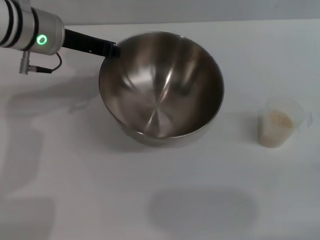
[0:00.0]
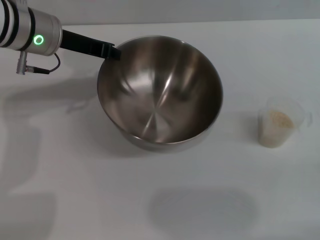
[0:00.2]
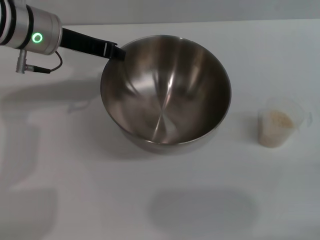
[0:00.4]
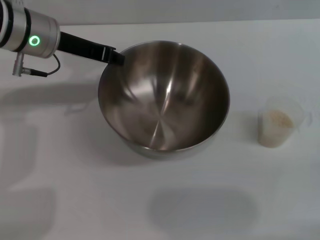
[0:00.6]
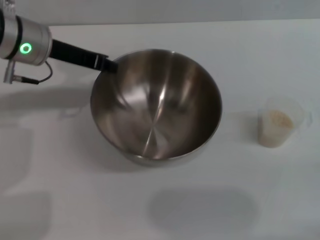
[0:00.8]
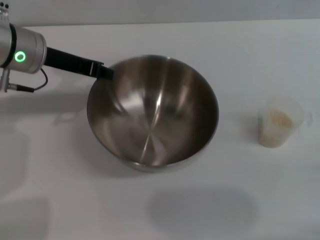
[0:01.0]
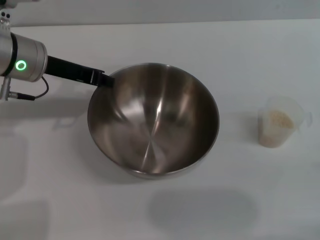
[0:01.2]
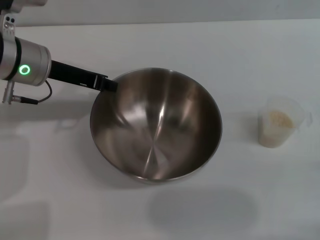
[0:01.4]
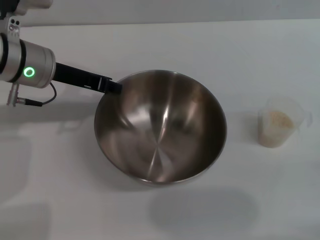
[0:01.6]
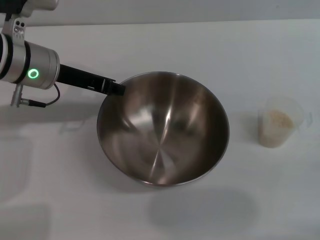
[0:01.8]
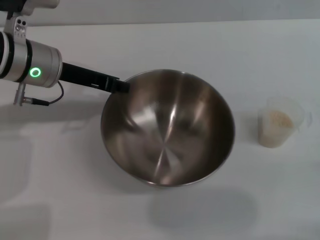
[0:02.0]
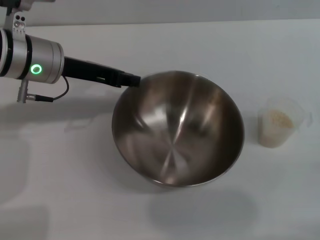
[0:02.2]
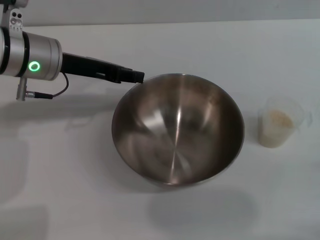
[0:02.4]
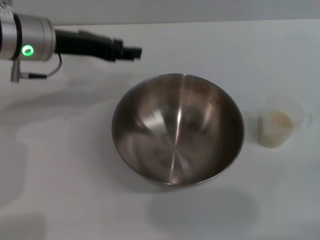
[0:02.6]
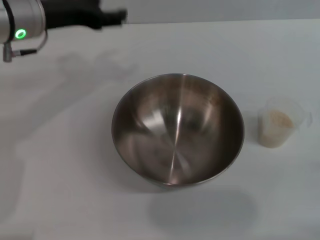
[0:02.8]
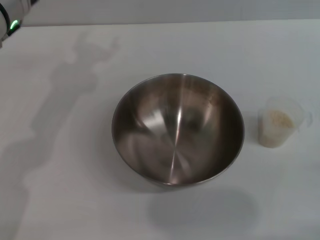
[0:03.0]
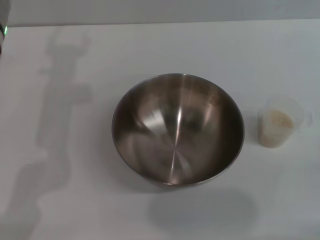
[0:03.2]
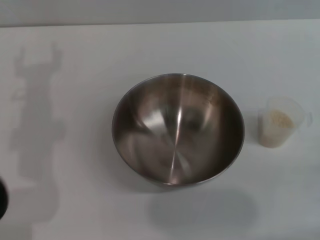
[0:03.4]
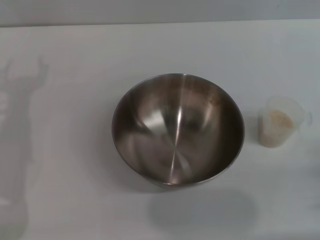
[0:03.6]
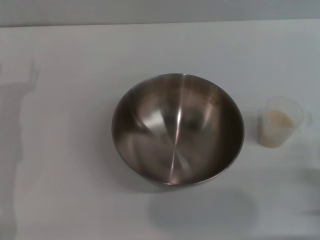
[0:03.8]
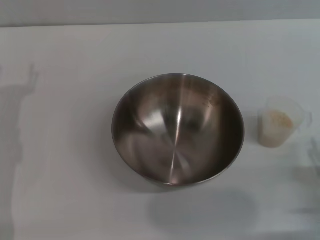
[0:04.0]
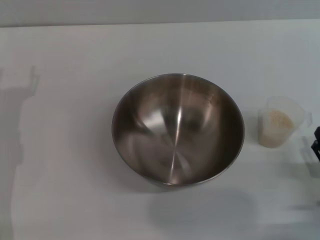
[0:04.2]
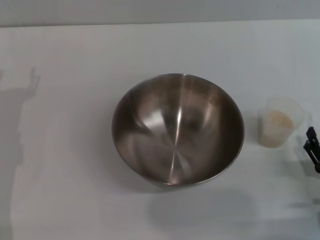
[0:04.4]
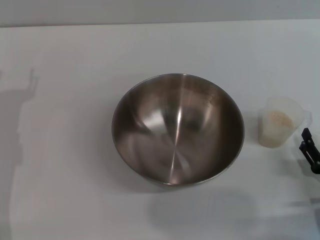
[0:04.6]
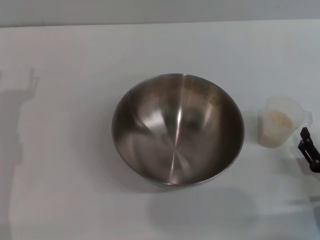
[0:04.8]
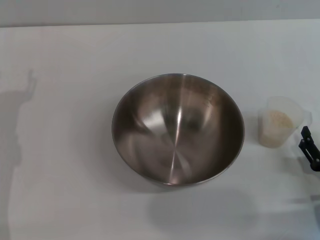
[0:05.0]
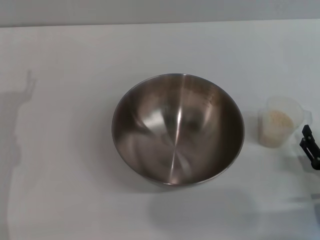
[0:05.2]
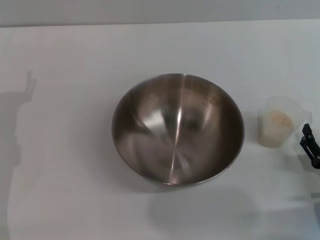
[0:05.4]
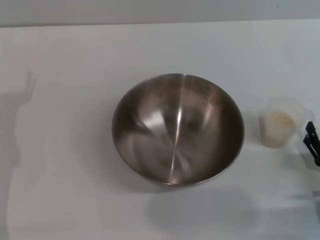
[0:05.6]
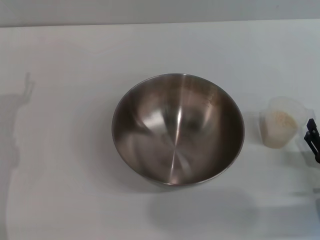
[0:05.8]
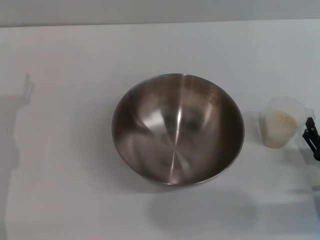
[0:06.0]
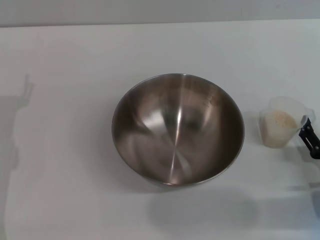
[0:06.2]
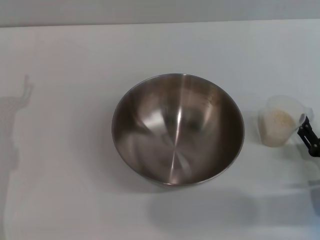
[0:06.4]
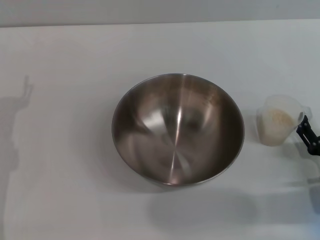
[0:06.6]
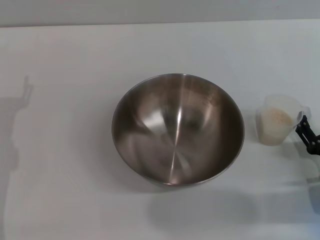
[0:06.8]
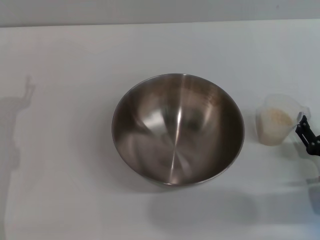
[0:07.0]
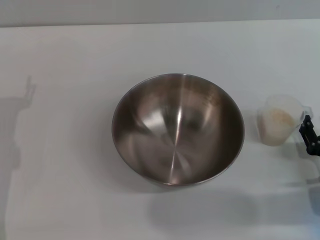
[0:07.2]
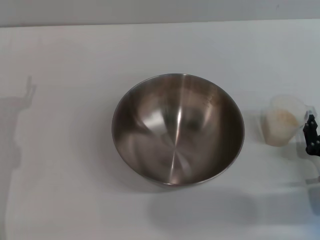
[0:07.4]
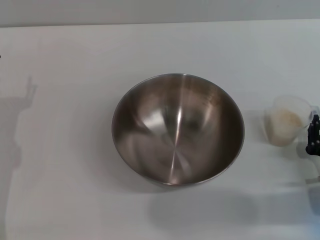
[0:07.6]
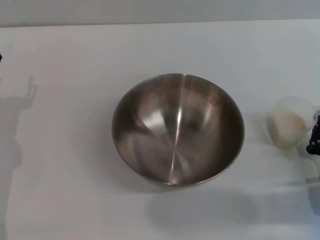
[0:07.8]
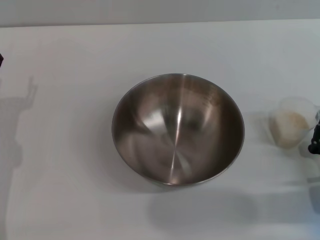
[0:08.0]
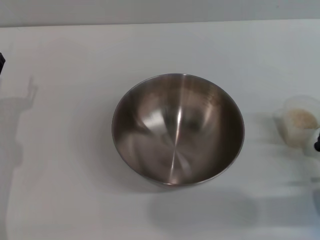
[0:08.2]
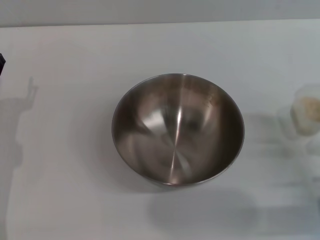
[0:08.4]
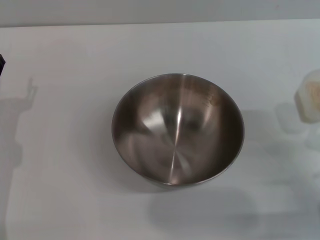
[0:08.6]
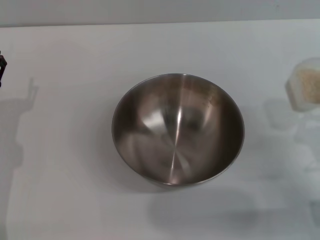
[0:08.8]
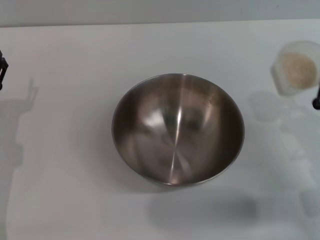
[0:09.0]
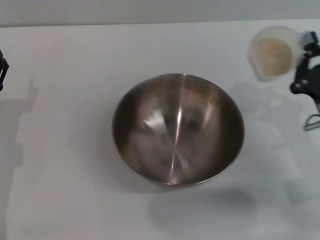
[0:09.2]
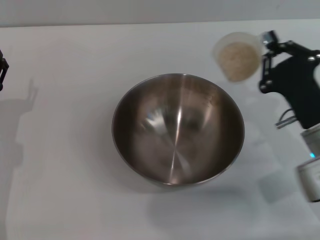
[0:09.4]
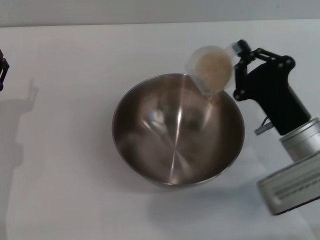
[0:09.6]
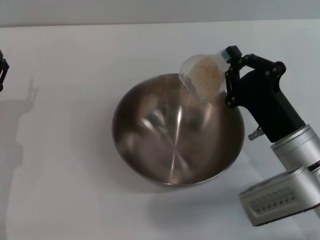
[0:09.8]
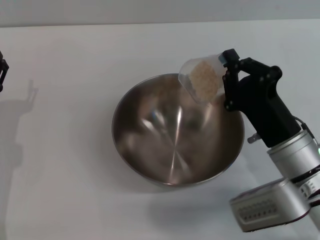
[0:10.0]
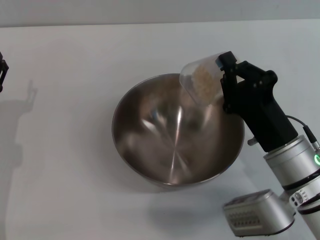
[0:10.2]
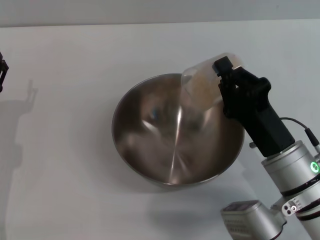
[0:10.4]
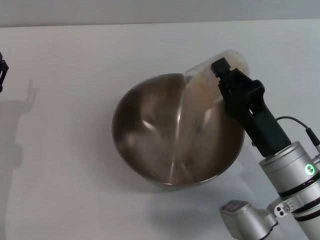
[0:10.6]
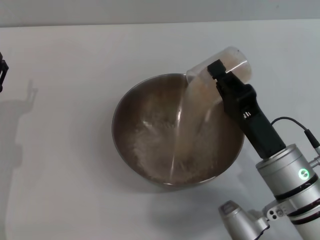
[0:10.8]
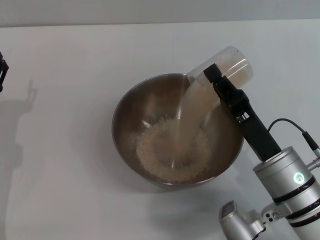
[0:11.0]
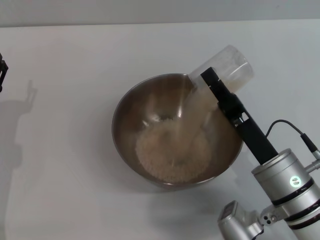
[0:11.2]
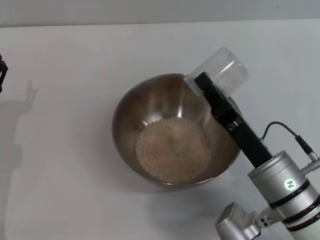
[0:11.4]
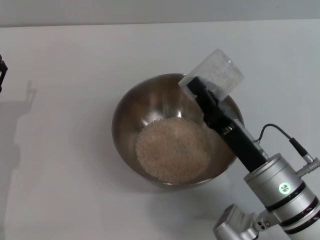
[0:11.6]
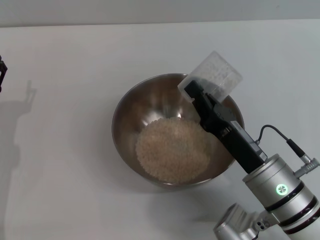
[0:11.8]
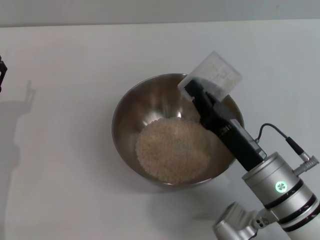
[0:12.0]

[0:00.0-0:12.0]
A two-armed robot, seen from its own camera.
Task of the whole recording: Place the bowl in the middle of the table with one hand and pour the rice from the grain cup into it with the other hand.
Step, 0:01.6 to 0:04.8: Place the bowl in the center of view with the left gripper.
Step, 0:05.0 to 0:08.6: Pick up the cup with rice in it with the right gripper.
Step, 0:08.8 to 0:11.0: Pour the rice from the cup into the bowl with the right gripper.
0:01.6 to 0:03.0: The left gripper opens.
0:03.0 to 0:04.4: The right gripper moves to the left, roughly 5 cm; the left gripper shifts some 20 cm downward, backward and to the left.
0:04.4 to 0:06.0: The grippers move only a little.
0:06.0 to 0:07.6: The right gripper closes.
0:07.6 to 0:09.0: The right gripper shifts roughly 5 cm upward, and closes up.
0:09.0 to 0:10.4: The right gripper moves to the left, about 10 cm.

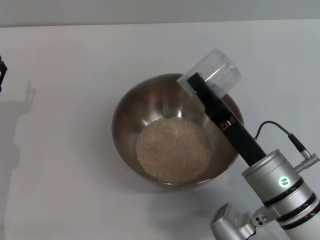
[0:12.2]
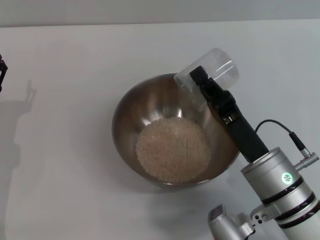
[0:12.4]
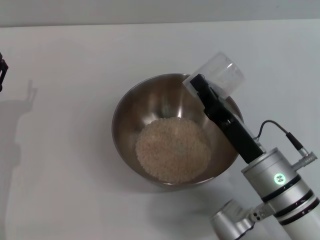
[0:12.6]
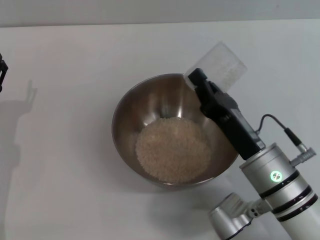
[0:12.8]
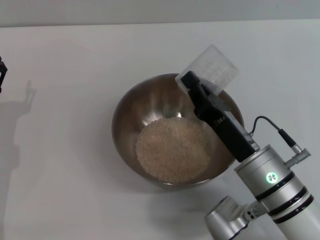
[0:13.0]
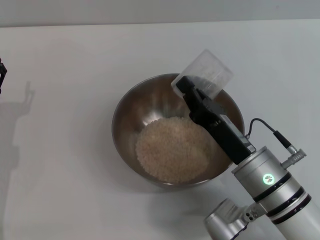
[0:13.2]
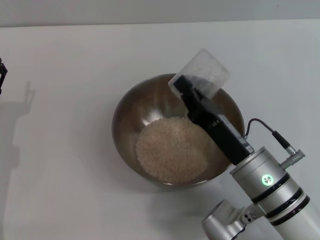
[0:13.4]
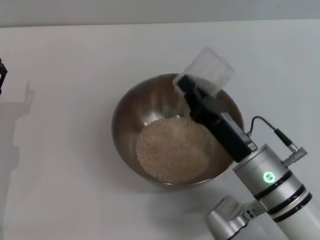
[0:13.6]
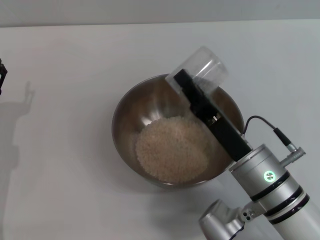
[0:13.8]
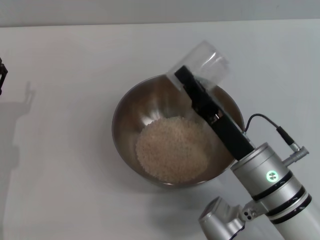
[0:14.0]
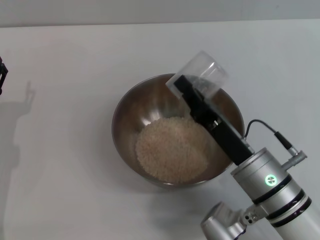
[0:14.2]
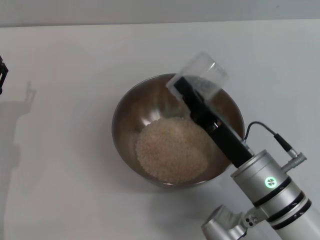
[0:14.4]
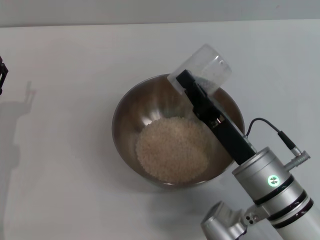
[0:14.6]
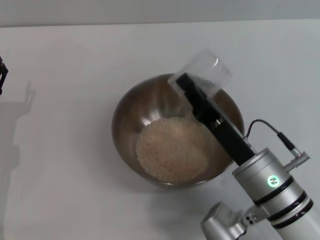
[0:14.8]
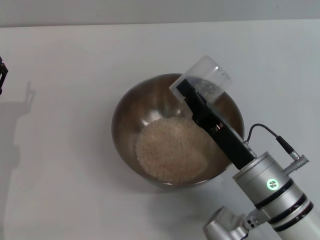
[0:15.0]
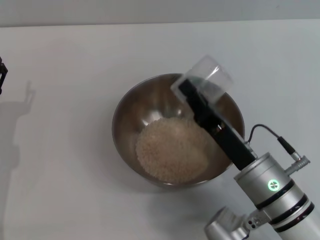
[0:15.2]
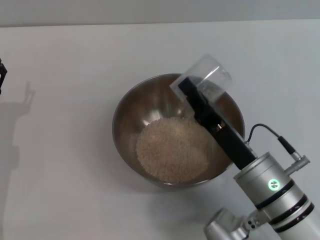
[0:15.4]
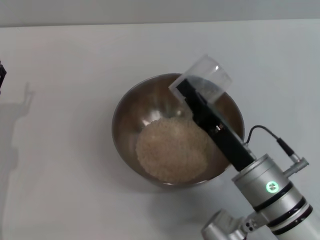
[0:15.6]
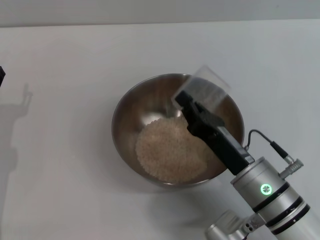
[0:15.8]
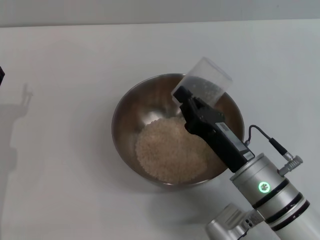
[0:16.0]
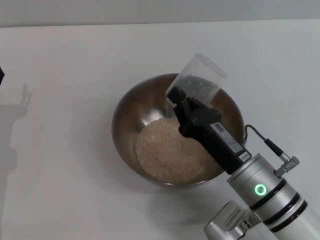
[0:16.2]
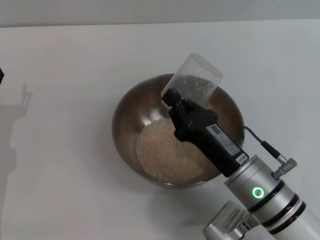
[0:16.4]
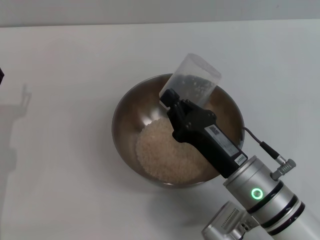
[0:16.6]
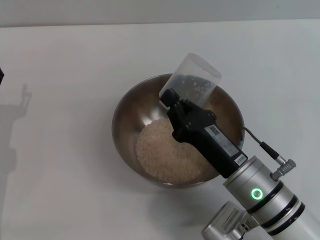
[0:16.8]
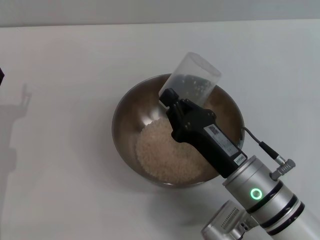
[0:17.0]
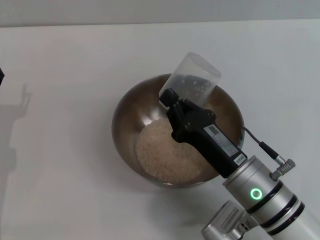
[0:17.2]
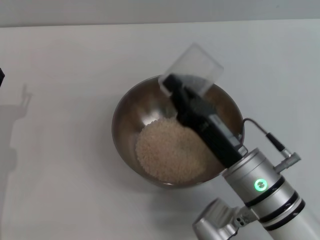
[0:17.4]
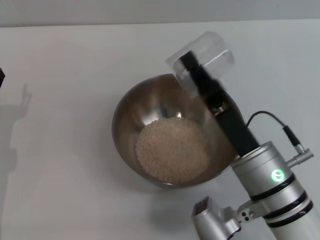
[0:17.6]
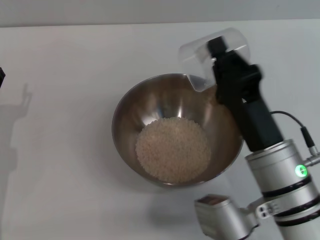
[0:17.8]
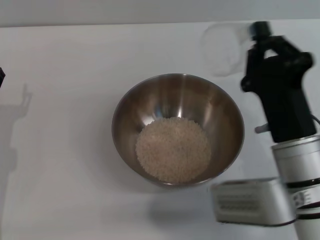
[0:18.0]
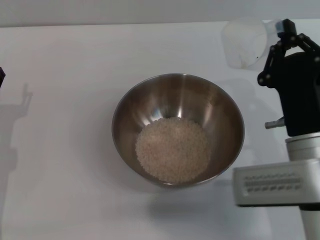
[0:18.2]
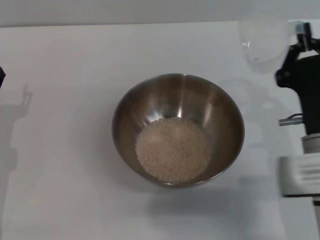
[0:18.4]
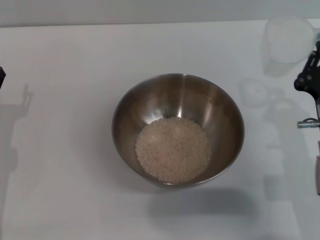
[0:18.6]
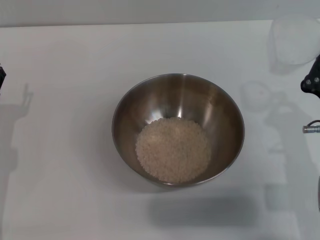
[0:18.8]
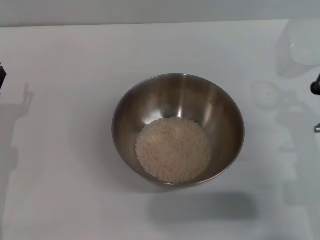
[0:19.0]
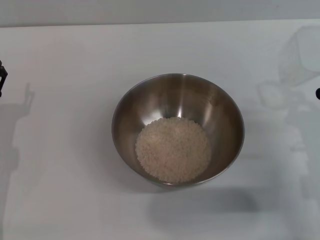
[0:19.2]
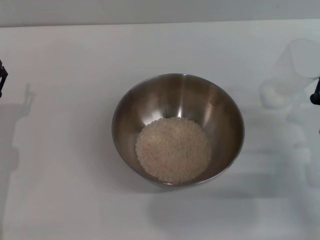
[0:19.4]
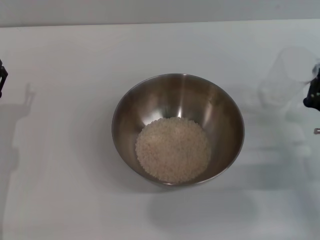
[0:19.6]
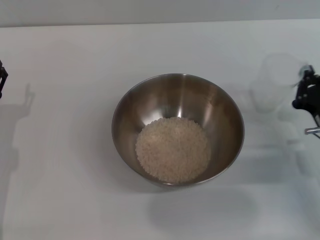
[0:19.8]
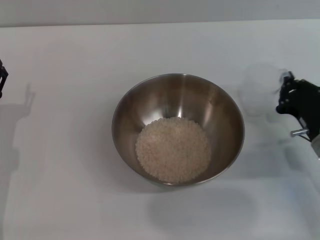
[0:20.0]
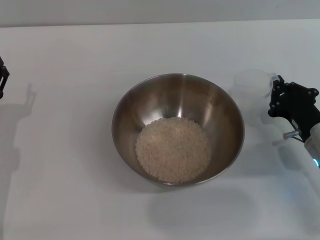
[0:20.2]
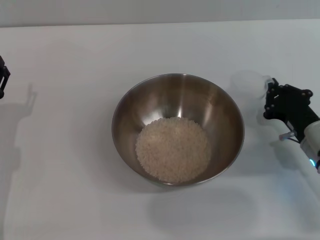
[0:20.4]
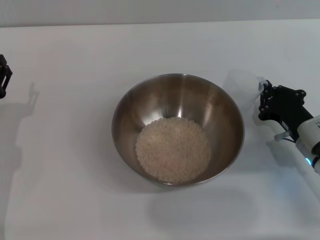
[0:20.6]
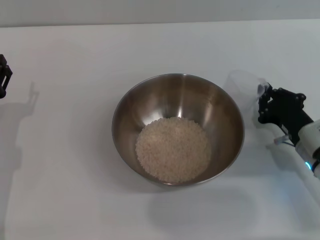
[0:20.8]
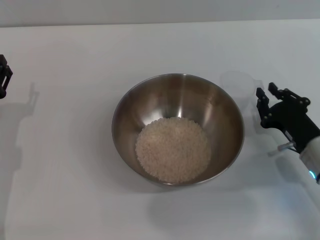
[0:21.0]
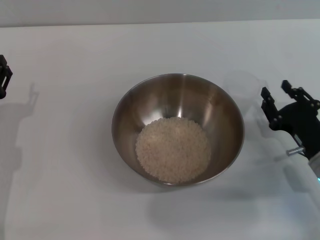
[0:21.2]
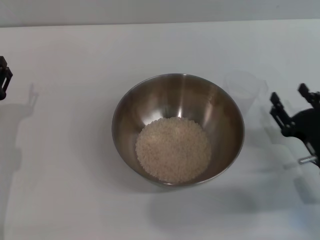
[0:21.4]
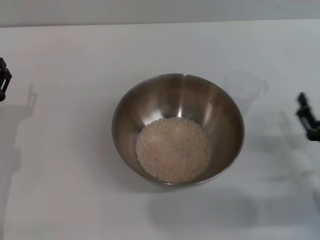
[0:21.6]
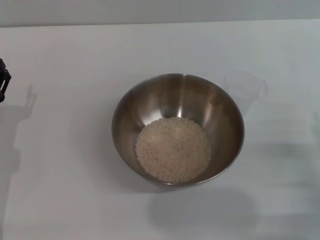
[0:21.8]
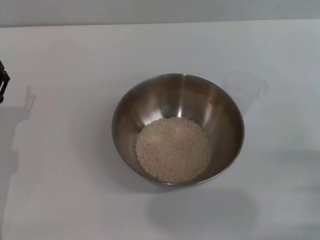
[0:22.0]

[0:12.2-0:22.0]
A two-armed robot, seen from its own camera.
Task of the whole recording: Place the bowl in the middle of the table with one hand and pour the rice from the grain cup into it with the other hand.
Step, 0:12.2 to 0:21.2: Place the cup on the table with the right gripper.
0:12.2 to 0:15.0: There are only small adjustments of the grippers.
0:15.0 to 0:16.4: The grippers stay close to where they were, moving slightly.
0:17.8 to 0:19.2: The right gripper moves to the right, about 15 cm.
0:19.2 to 0:20.6: The right gripper goes some 5 cm forward.
0:20.6 to 0:22.0: The right gripper travels backward and to the right by approximately 15 cm, and opens.
